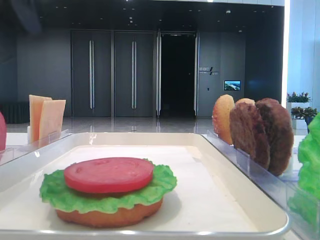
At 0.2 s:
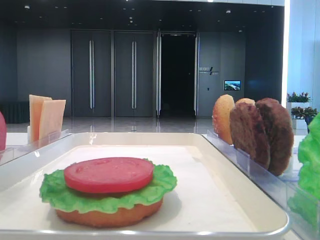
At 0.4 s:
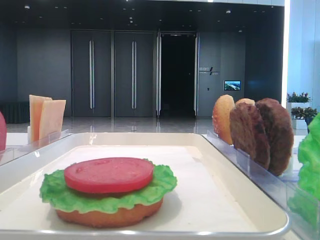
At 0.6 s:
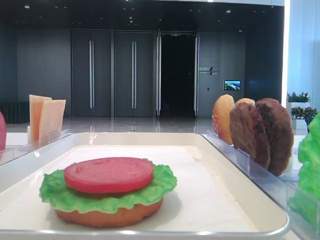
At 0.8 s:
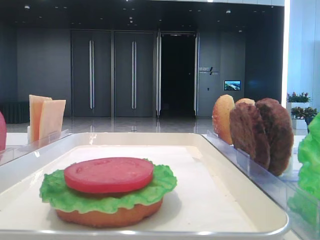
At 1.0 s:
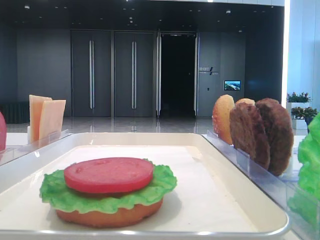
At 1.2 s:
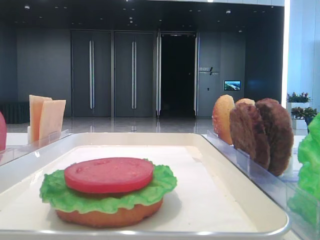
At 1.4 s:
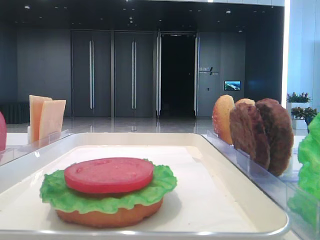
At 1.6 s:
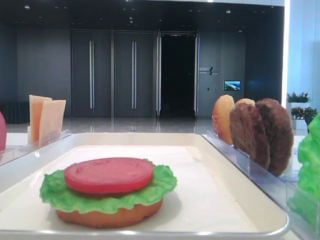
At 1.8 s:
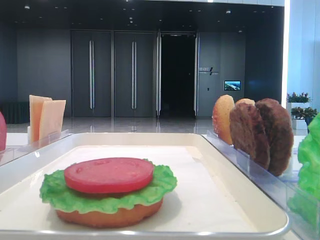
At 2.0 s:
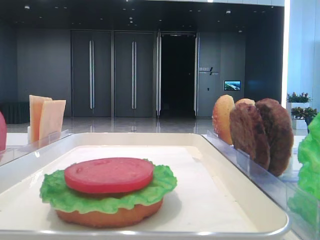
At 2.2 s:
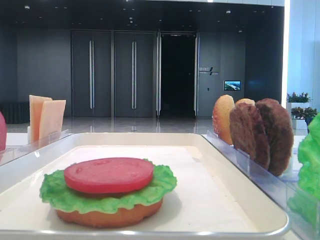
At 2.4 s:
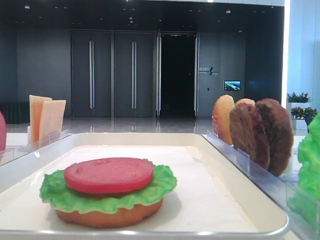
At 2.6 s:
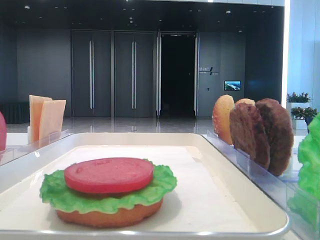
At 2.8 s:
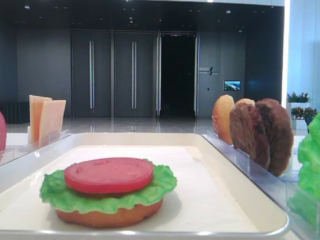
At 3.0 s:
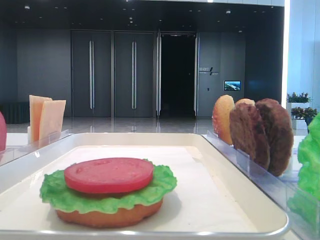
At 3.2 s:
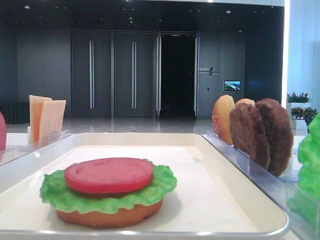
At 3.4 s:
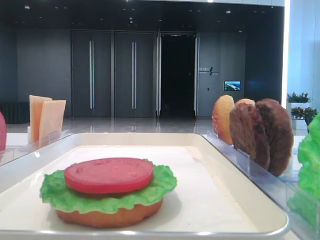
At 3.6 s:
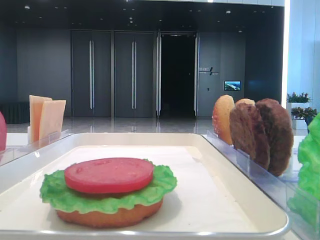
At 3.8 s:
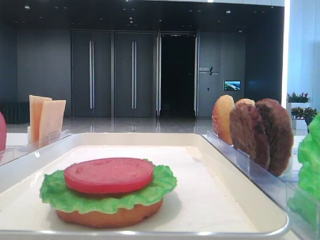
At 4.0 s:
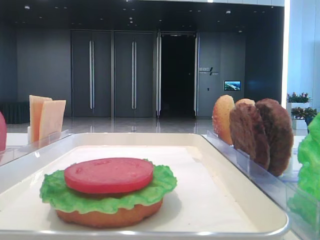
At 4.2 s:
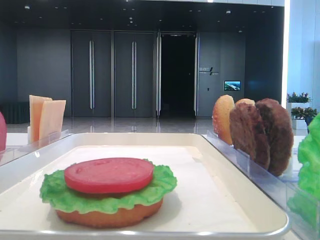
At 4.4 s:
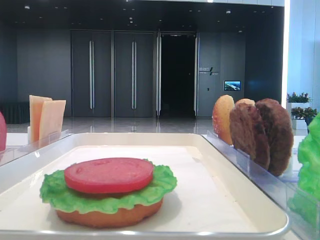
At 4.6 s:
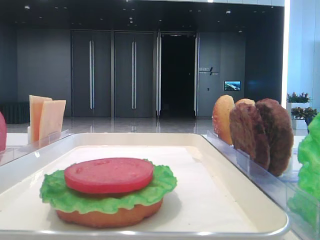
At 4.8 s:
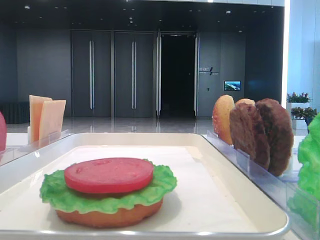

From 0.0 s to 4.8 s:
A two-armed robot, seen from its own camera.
From 0.0 s to 1.6 s: The left gripper goes approximately 20 cm backward and to the left.
From 3.2 s to 4.8 s: Both grippers stay put.
